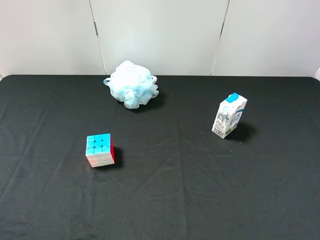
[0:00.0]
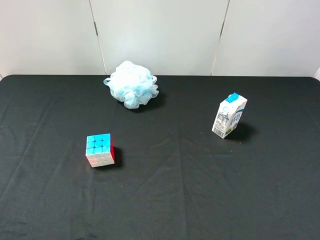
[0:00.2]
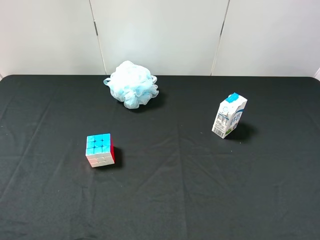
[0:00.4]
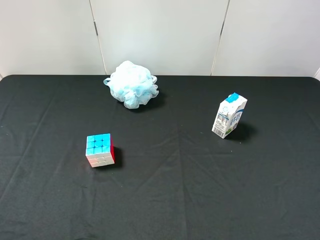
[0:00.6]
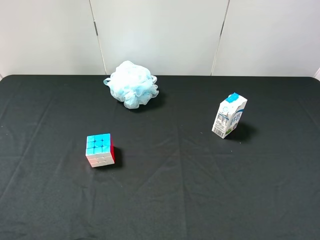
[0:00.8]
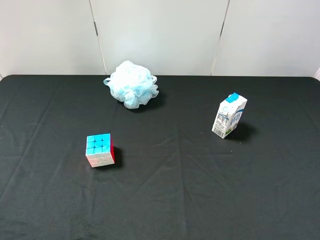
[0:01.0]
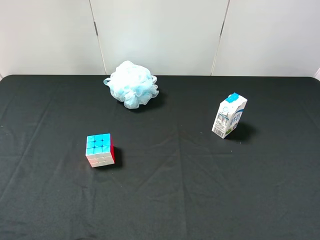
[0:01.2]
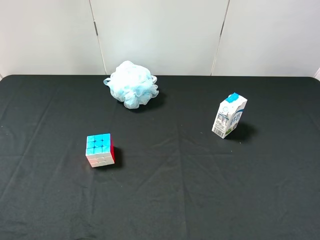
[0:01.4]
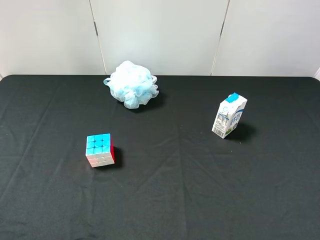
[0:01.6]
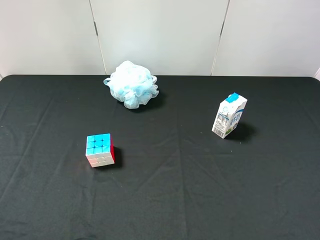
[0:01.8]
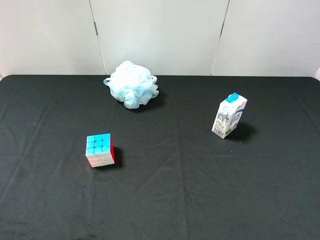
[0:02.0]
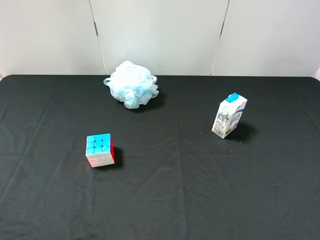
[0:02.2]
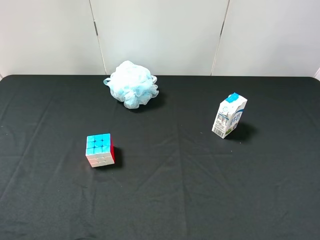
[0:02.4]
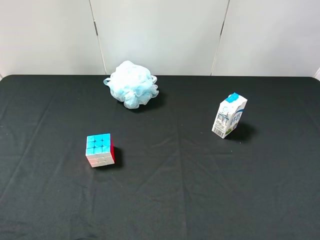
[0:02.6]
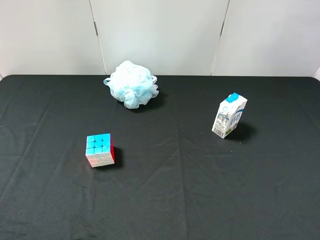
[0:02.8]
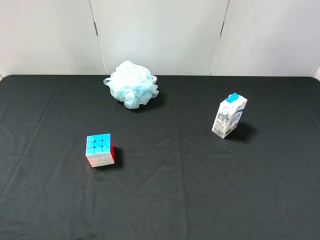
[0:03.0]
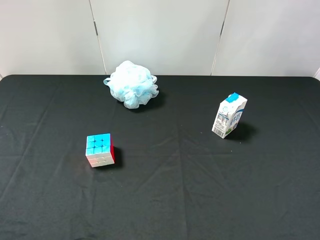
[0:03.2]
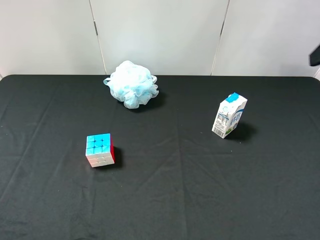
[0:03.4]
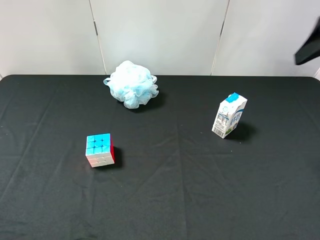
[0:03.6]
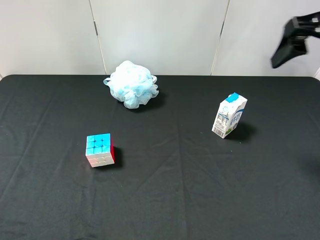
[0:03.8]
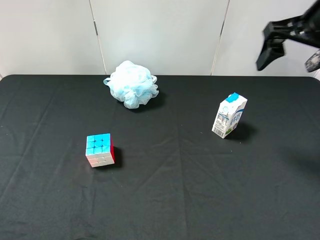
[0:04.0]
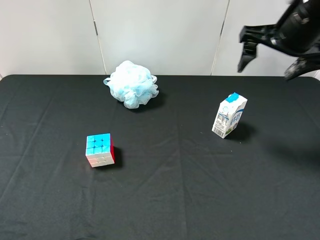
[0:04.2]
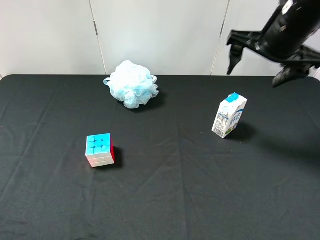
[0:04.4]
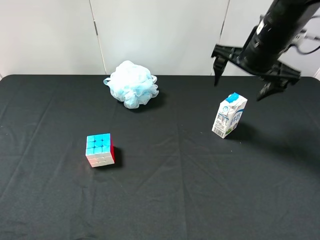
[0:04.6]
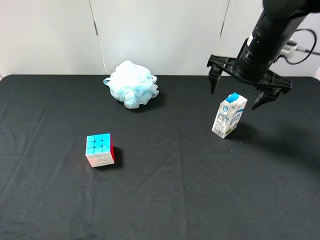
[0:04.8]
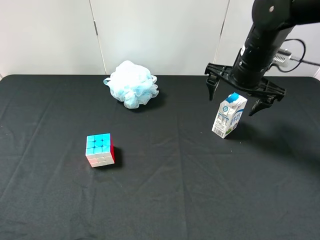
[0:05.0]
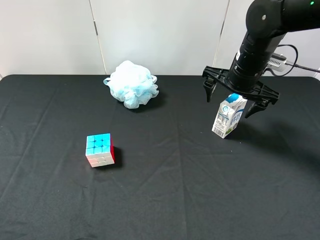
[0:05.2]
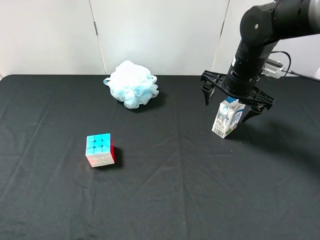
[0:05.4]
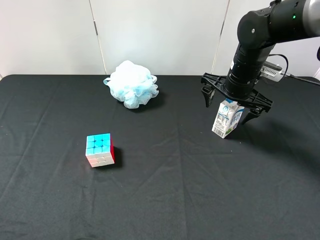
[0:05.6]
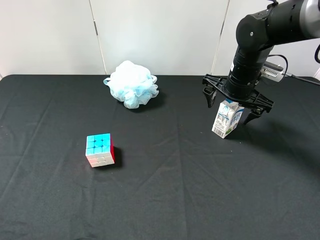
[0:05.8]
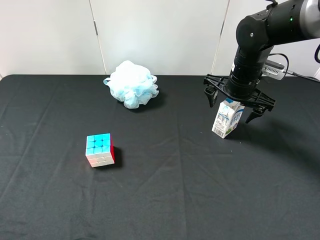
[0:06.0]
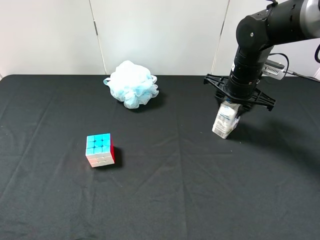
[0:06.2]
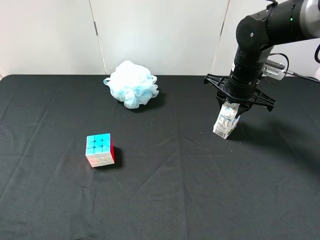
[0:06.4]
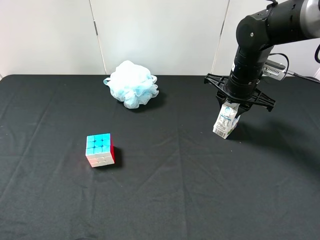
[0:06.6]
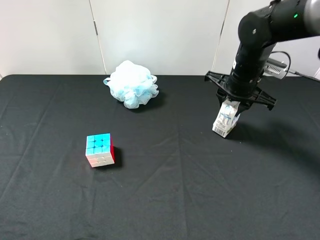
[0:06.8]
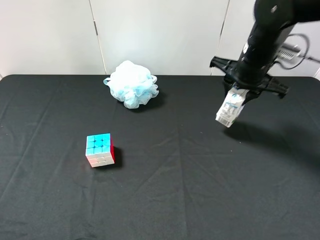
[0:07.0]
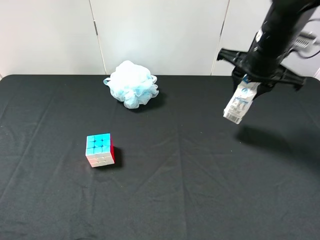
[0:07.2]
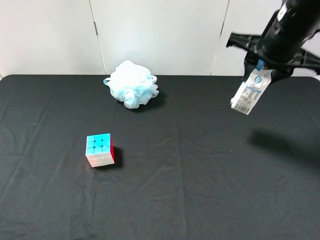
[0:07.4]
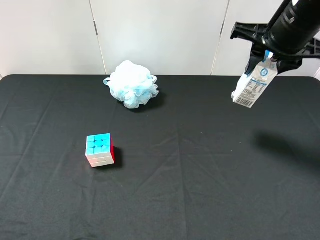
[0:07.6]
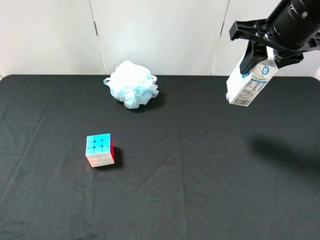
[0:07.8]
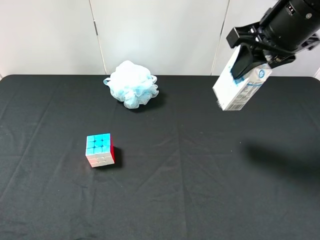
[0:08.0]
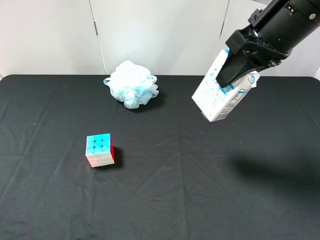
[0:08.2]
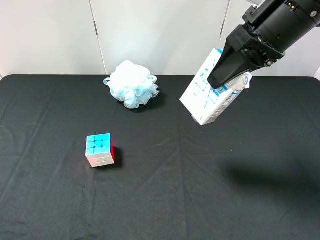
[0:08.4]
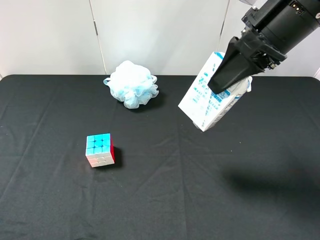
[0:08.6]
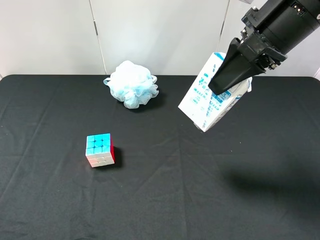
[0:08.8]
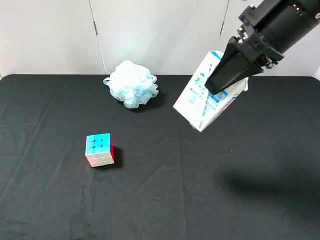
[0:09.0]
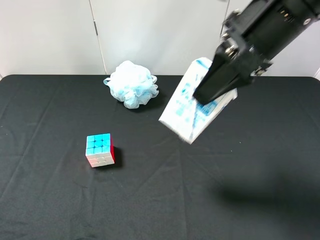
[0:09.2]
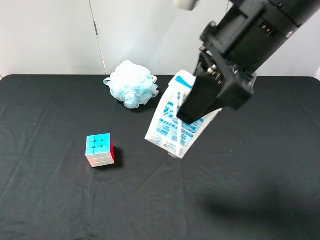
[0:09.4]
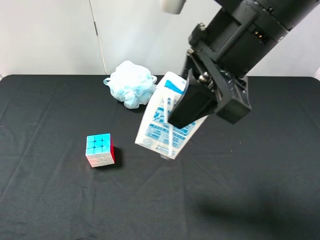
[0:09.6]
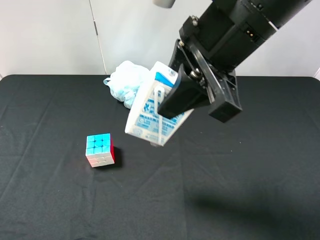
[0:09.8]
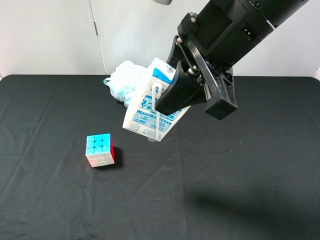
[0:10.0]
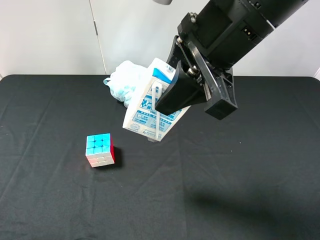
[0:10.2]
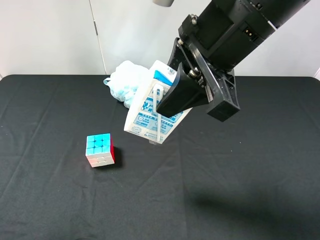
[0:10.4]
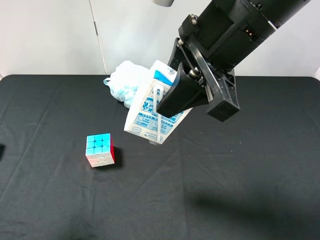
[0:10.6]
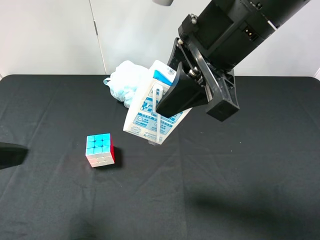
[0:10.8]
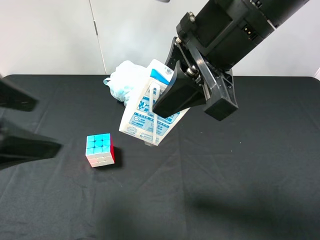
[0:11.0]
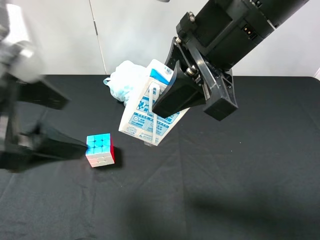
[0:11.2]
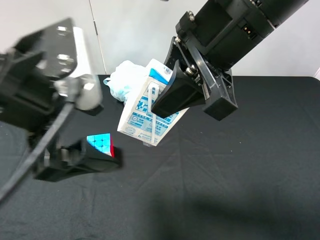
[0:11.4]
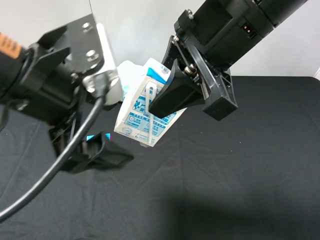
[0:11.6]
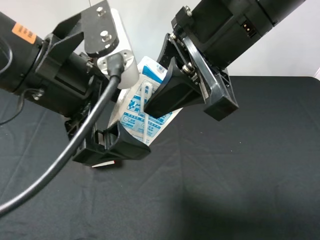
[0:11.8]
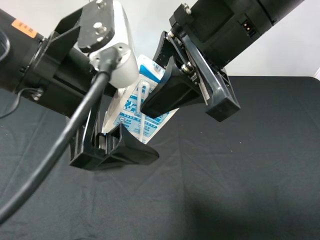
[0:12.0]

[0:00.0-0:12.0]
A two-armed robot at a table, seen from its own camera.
Task of the whole recording: use the right gripper to pick up the item and transfer it from the right gripper to the left gripper.
Step, 0:00.0 to 0:06.4: Use the right gripper to grab the milk on the right side of the table.
0:00.0 to 0:01.6: The two grippers keep their place.
0:03.0 to 0:04.4: The right gripper moves forward, to the left and downward, some 20 cm.
0:04.4 to 0:06.0: The right gripper is displaced downward by roughly 10 cm.
0:06.0 to 0:07.6: The right gripper is displaced upward and backward by roughly 15 cm, and closes.
0:07.6 to 0:09.0: The right gripper moves approximately 5 cm.
0:09.0 to 0:10.4: The right gripper heads to the left, covering about 5 cm; the left gripper goes roughly 5 cm forward.
0:10.4 to 0:12.0: The left gripper travels to the right and forward by approximately 20 cm.

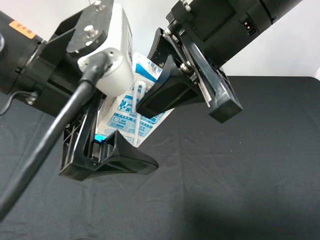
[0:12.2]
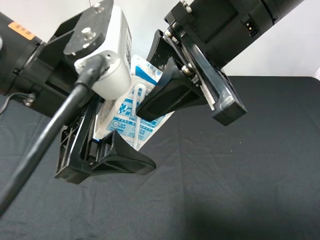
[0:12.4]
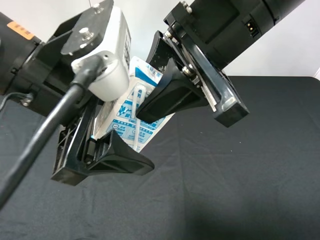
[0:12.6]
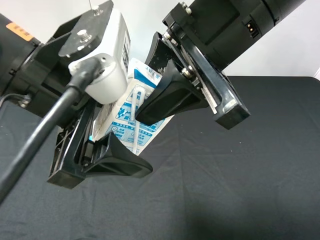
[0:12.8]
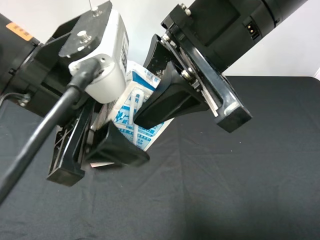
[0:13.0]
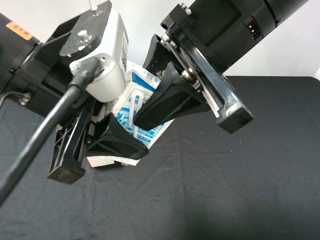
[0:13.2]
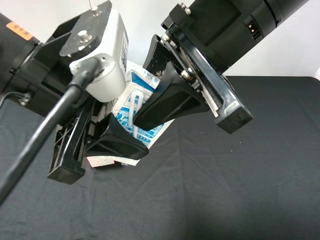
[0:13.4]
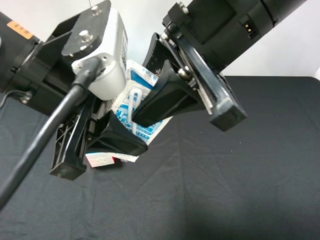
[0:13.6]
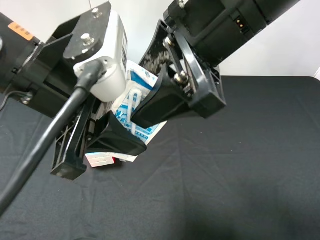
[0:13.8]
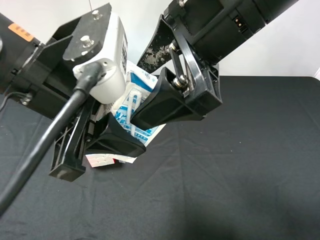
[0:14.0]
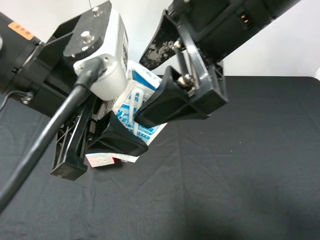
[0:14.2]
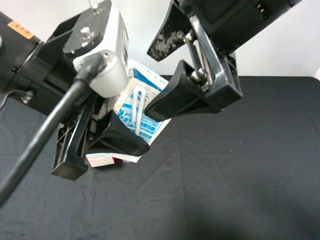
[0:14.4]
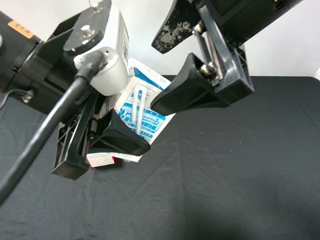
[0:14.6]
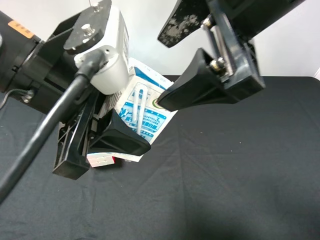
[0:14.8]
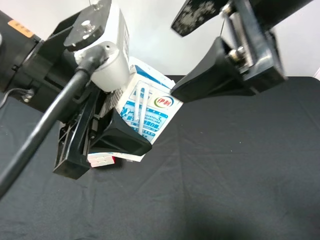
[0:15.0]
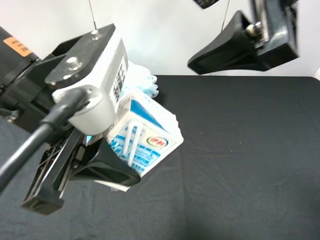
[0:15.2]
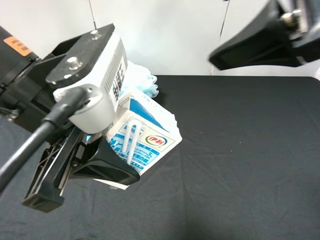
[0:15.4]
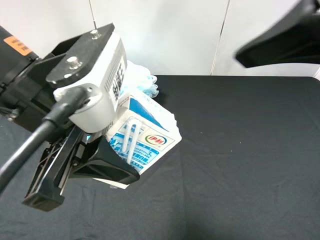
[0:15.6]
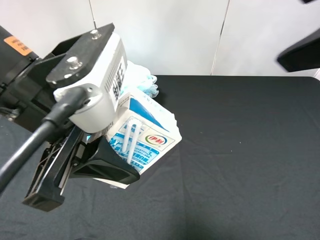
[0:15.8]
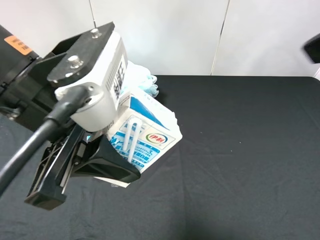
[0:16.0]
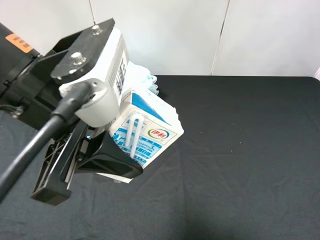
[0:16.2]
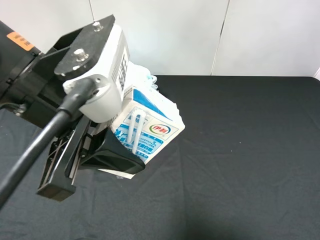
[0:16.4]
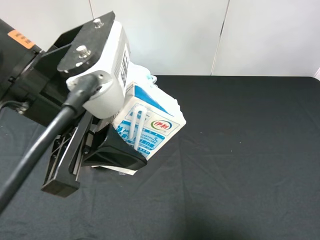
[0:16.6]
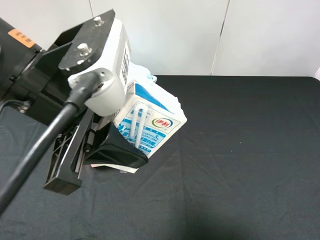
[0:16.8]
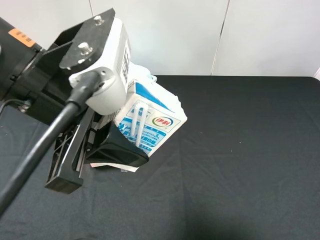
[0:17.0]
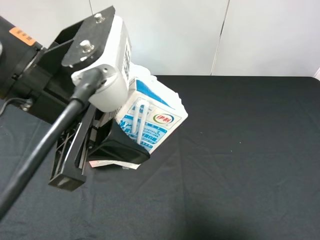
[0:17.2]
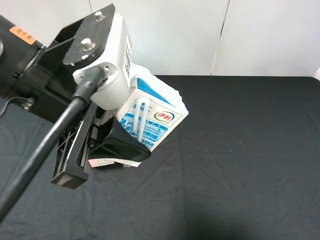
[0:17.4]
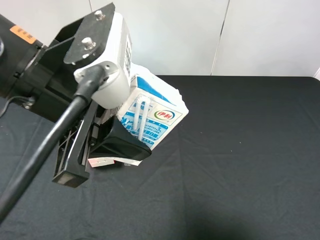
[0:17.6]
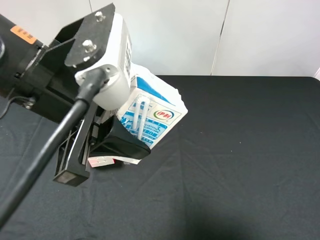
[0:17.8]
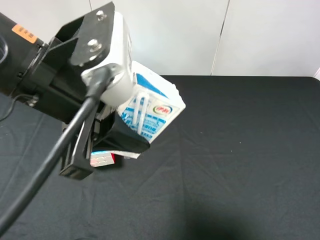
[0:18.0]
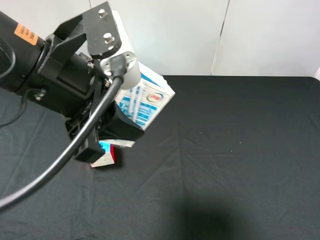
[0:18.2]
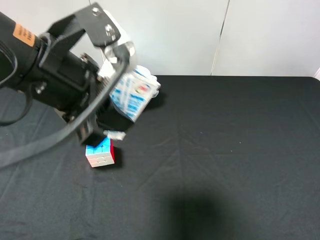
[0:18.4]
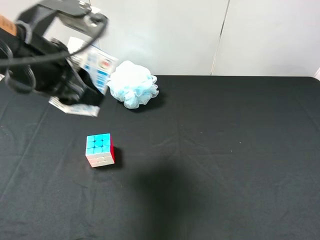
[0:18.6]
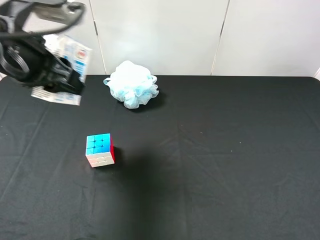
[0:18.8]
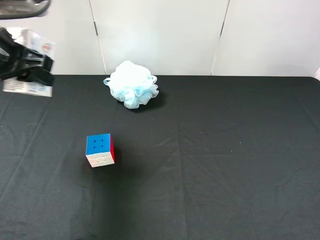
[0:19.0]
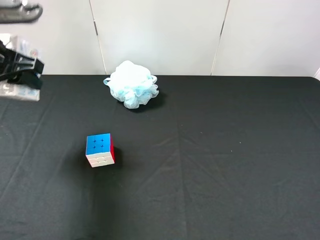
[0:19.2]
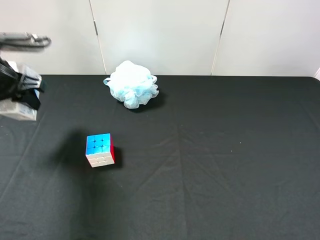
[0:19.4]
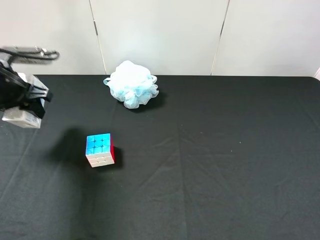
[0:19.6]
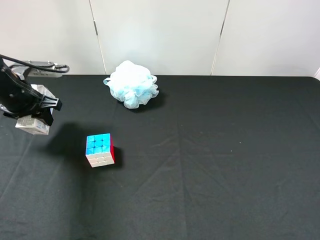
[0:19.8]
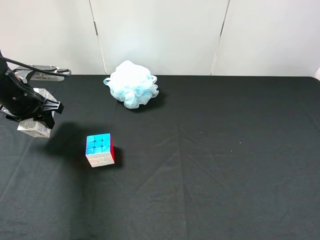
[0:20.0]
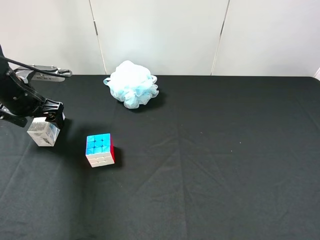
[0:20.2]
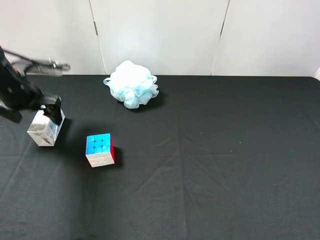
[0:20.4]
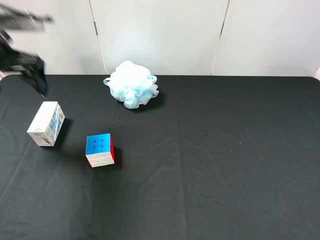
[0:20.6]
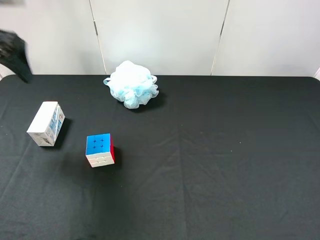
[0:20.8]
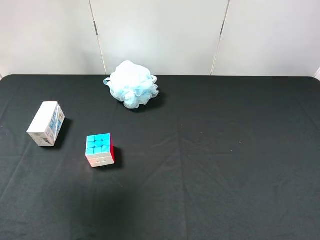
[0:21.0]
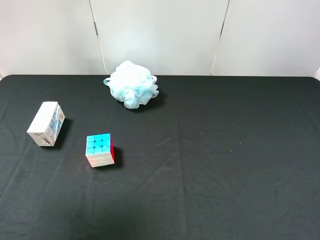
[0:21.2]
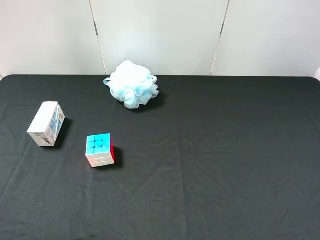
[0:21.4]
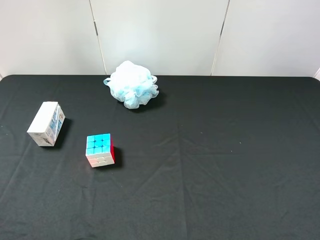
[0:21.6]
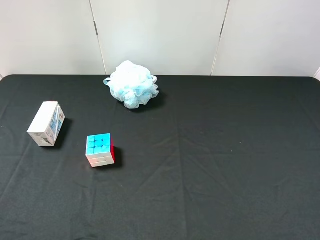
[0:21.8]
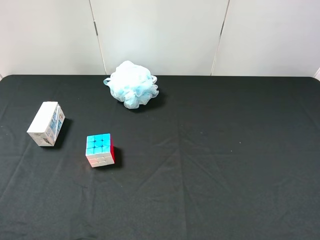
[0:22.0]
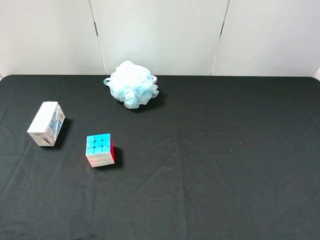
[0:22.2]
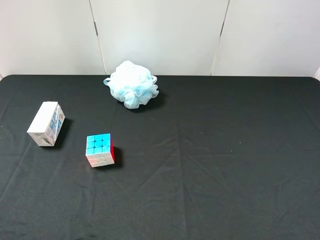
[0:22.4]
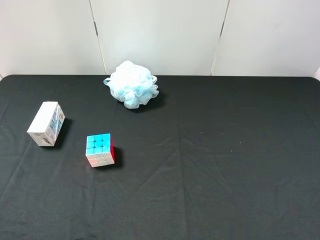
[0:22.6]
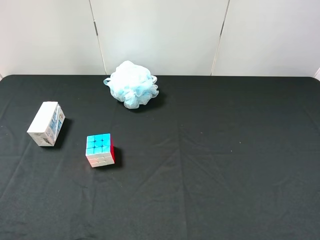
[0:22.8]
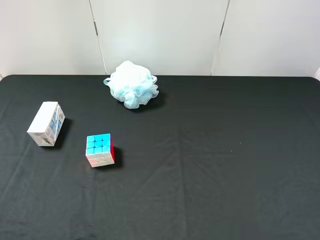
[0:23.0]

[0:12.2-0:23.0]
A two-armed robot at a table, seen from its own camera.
Task of the whole recording: use the right gripper to pick up the item and transfer it from the right gripper to the left gripper.
Step, 0:12.2 to 0:14.6: Pass the milk to the left gripper.
Step, 0:14.8 to 0:20.4: The left gripper places milk on the left side of the table.
0:12.2 to 0:13.8: The left gripper closes up. The right gripper opens.
0:13.8 to 0:15.2: The right gripper is displaced upward and to the right by approximately 10 cm.
0:15.2 to 0:16.8: The right gripper heads to the right, backward and downward, covering approximately 25 cm.
0:16.8 to 0:18.4: The right gripper is displaced downward by roughly 5 cm.
0:18.4 to 0:20.0: The left gripper goes about 25 cm to the left, downward and forward.
0:20.0 to 0:21.4: The left gripper is displaced backward and upward by approximately 35 cm, and opens its fingers.
